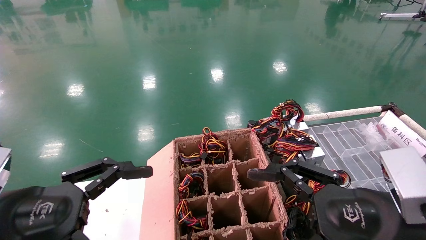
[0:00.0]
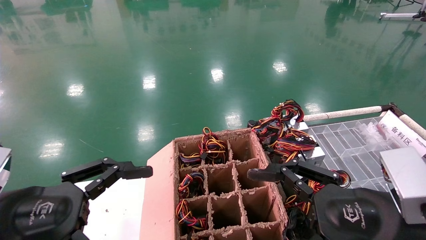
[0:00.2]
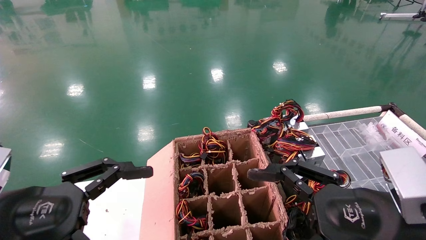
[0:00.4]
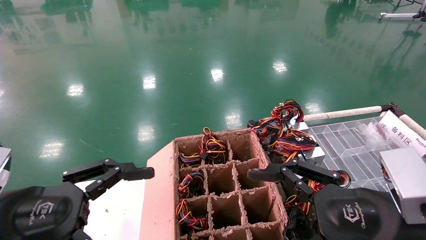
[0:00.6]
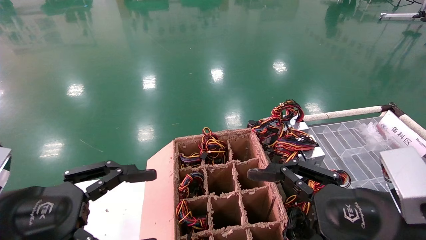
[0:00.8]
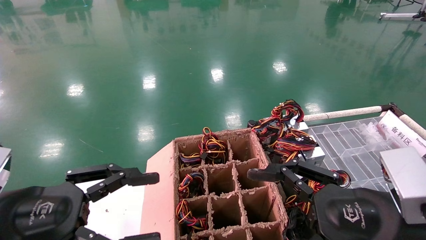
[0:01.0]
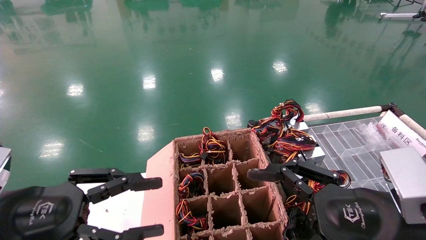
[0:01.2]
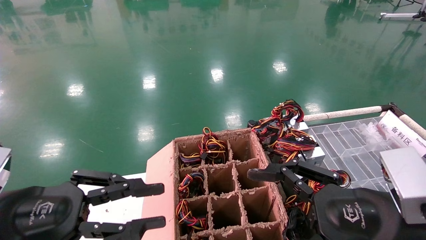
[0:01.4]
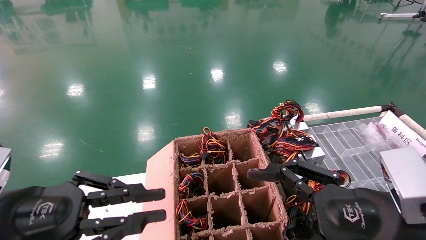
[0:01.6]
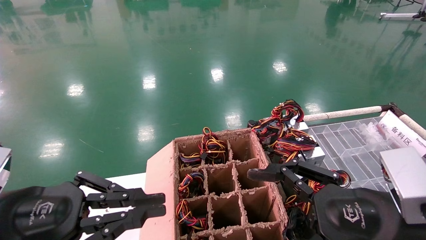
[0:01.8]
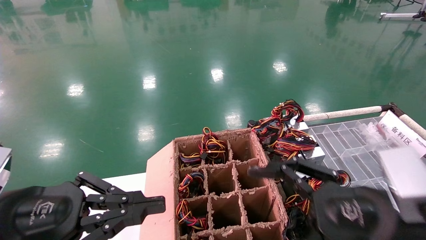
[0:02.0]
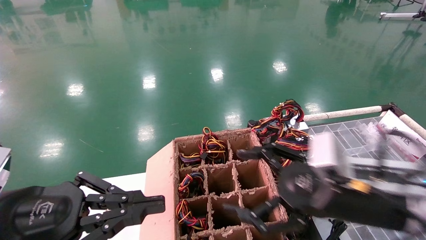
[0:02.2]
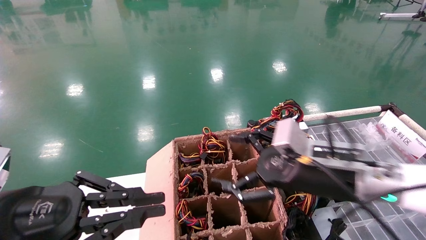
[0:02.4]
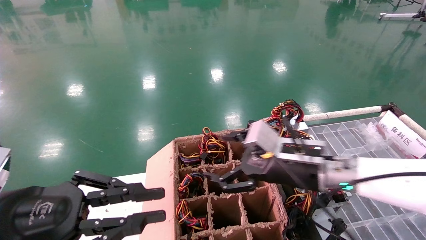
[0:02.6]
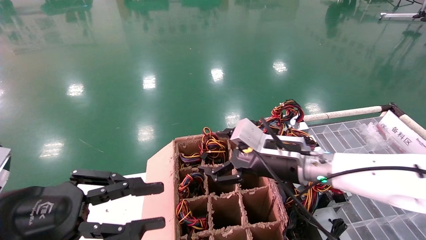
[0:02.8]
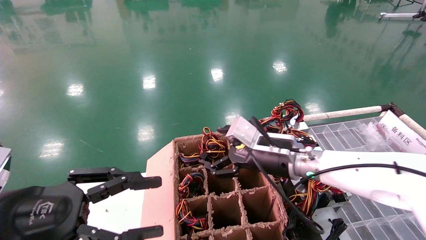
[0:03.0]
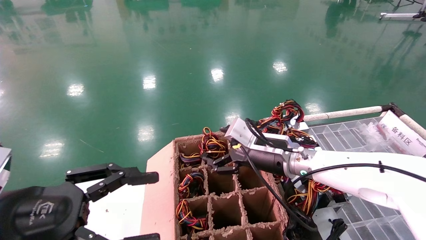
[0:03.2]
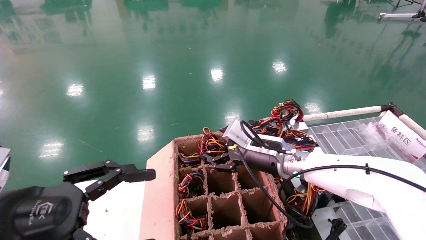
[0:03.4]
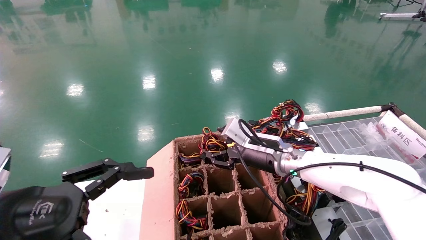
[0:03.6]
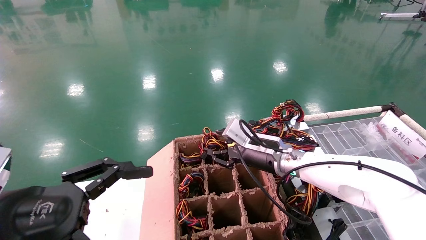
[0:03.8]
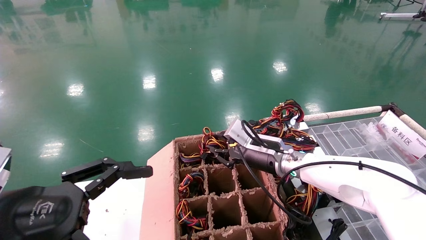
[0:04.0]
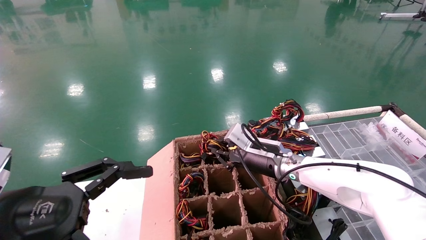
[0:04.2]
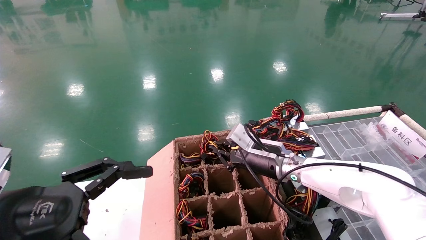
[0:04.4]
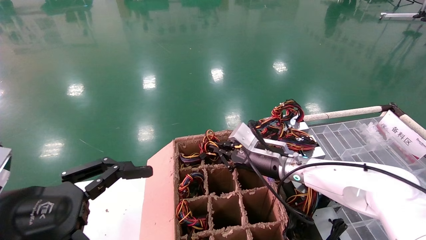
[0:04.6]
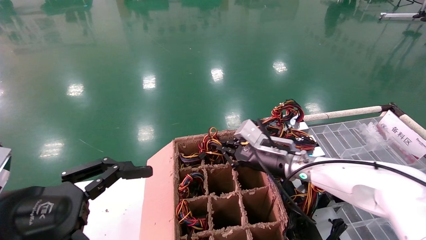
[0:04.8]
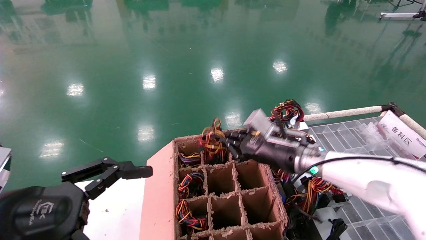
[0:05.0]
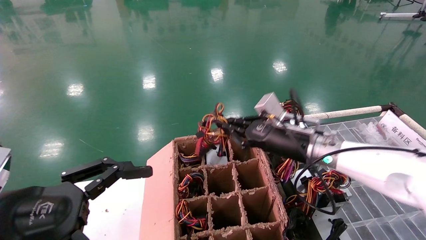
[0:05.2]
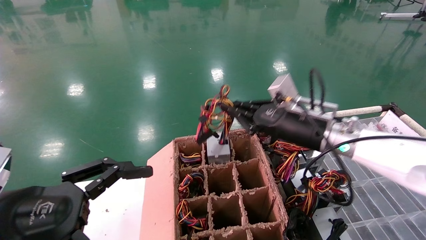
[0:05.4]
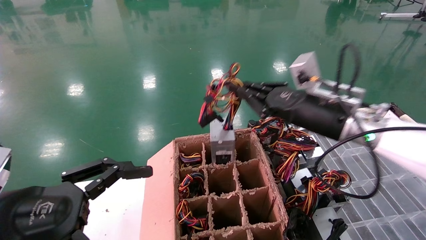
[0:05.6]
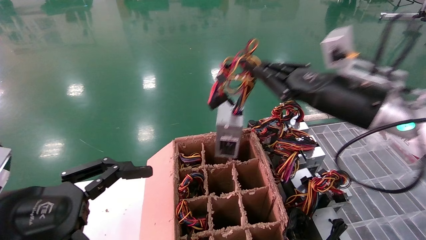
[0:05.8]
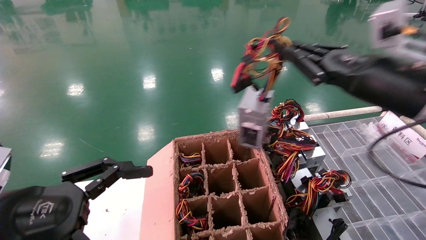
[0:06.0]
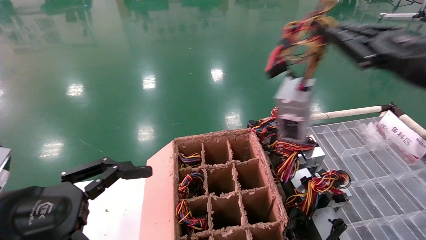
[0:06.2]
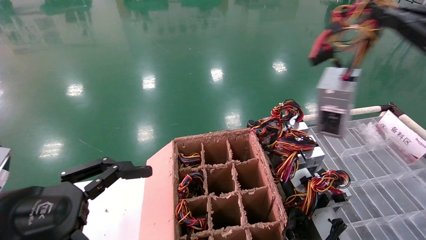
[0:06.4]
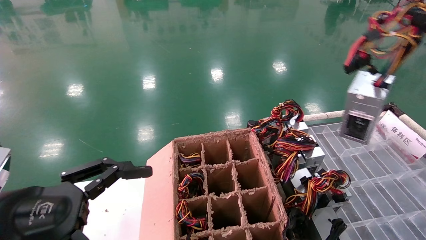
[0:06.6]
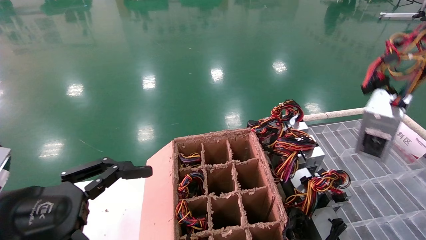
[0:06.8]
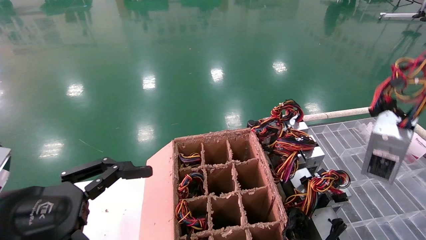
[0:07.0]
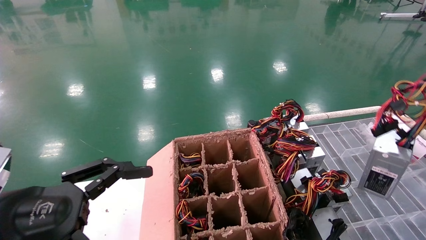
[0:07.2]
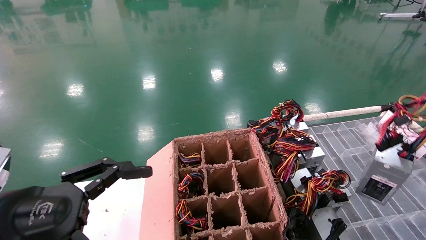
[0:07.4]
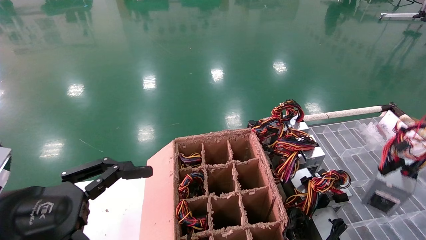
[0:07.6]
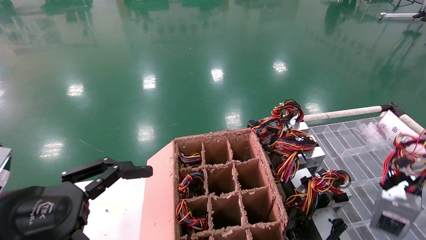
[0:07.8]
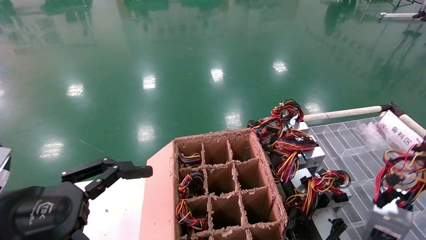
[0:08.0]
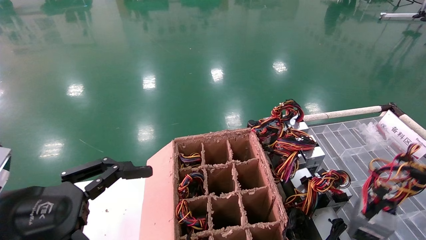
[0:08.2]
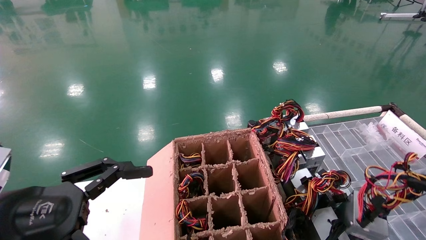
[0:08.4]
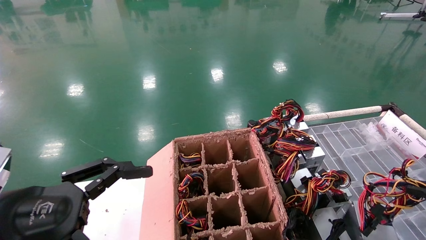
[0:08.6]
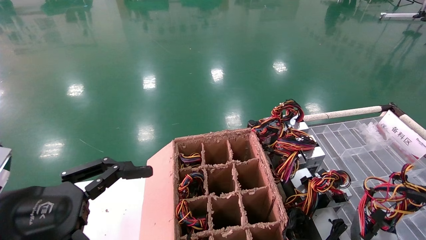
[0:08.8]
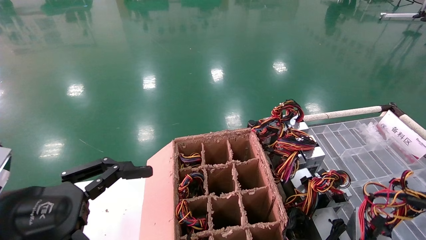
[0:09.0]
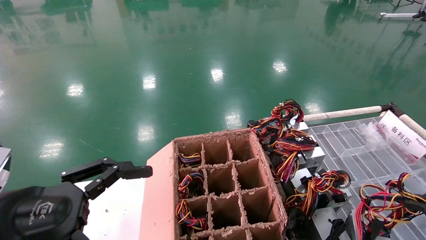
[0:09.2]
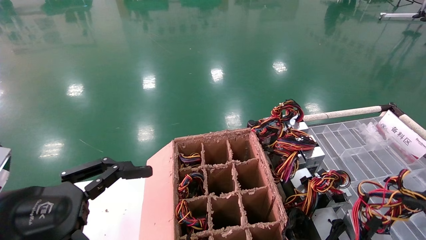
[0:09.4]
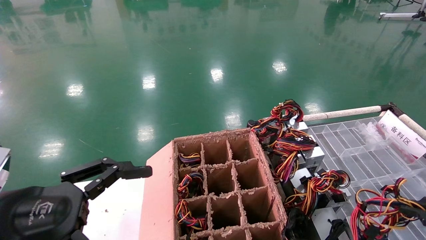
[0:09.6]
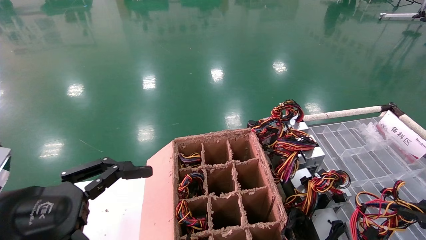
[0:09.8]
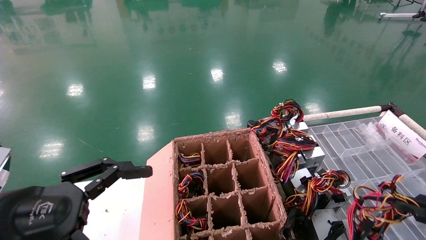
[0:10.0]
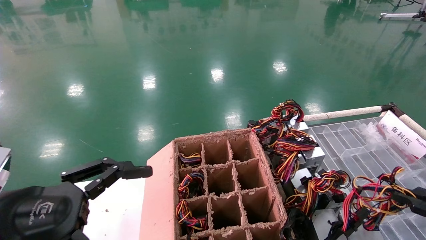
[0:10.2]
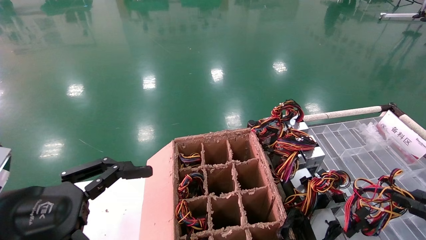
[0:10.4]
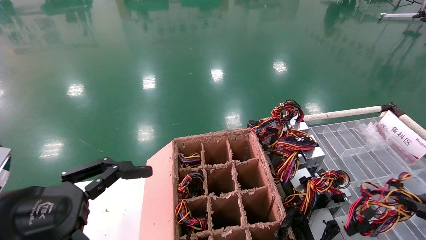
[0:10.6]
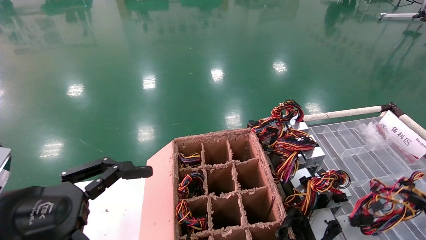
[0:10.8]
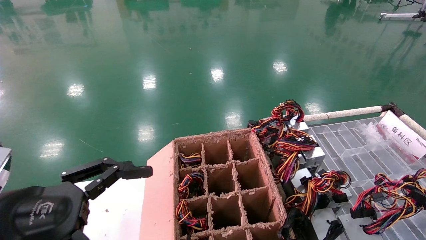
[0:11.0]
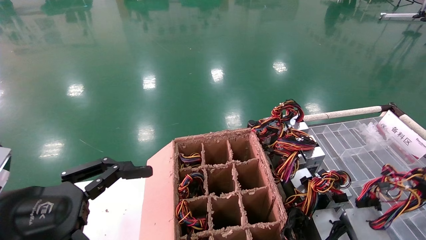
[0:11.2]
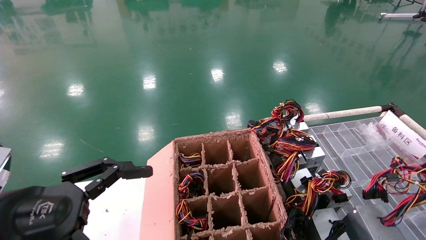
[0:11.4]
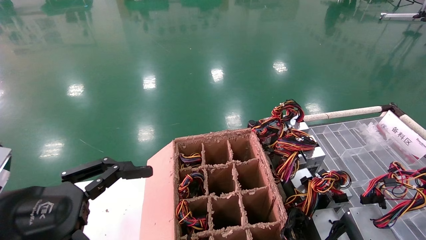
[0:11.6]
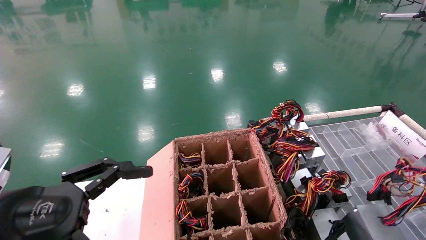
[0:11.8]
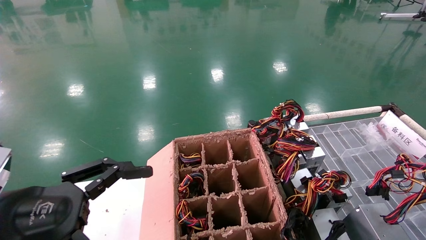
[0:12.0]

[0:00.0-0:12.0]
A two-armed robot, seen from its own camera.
Step, 0:02.2 to 0:04.6: Grab and lift the power supply from the large box.
0:00.0 to 0:01.6: The left gripper closes its fingers.
0:01.6 to 0:03.0: The right gripper travels forward and to the left by roughly 25 cm.
0:03.0 to 0:04.4: The left gripper opens its fingers. Meanwhile the right gripper is displaced forward by approximately 5 cm, and closes up.
0:04.4 to 0:06.0: The right gripper is displaced upward, to the right and backward by roughly 30 cm.
0:06.0 to 0:07.6: The right gripper shifts approximately 25 cm to the right, backward and downward.
0:07.6 to 0:09.0: The right gripper moves approximately 5 cm.
0:09.0 to 0:10.4: The right gripper goes roughly 5 cm downward.
0:10.4 to 0:12.0: The right gripper is displaced downward by some 10 cm.

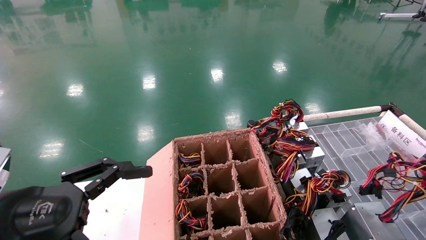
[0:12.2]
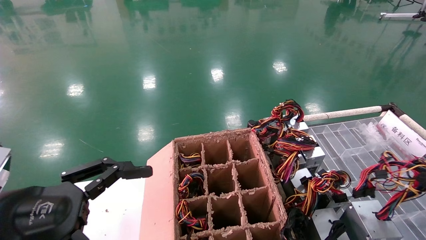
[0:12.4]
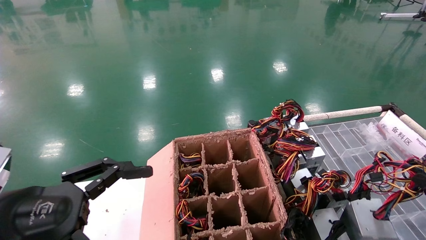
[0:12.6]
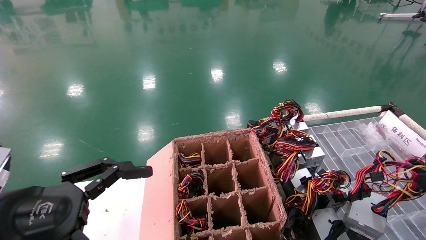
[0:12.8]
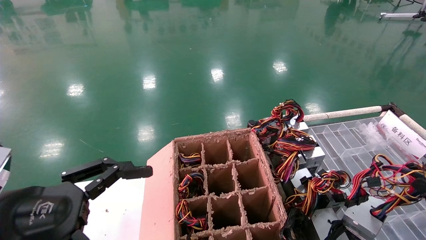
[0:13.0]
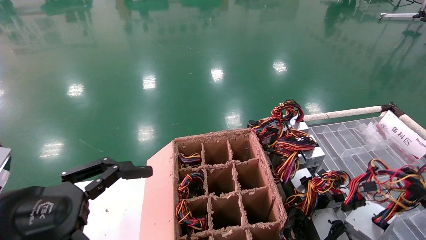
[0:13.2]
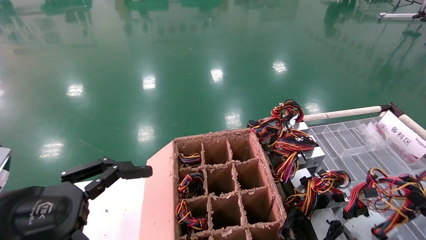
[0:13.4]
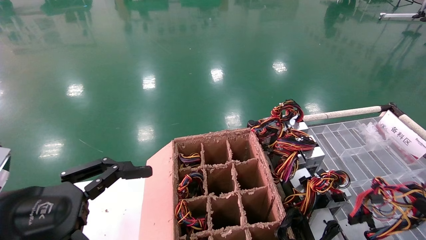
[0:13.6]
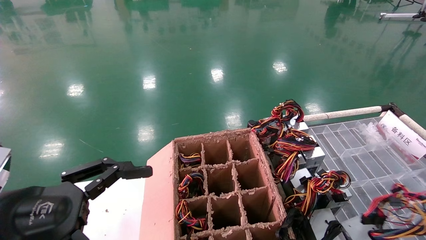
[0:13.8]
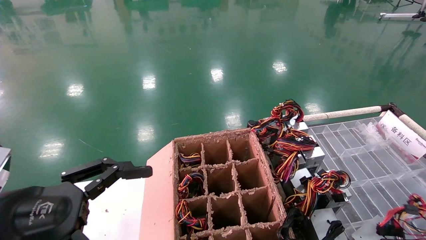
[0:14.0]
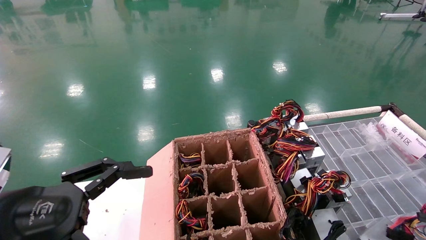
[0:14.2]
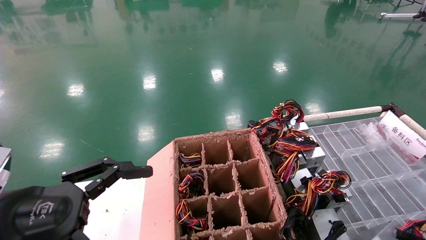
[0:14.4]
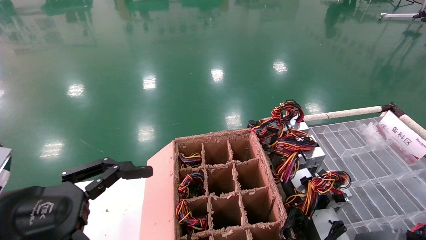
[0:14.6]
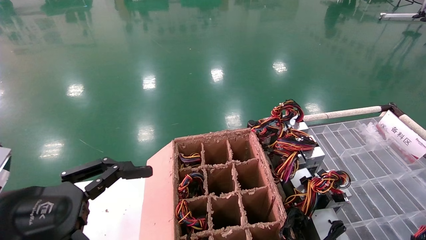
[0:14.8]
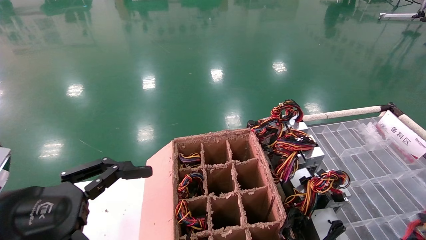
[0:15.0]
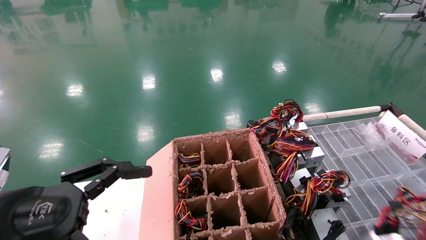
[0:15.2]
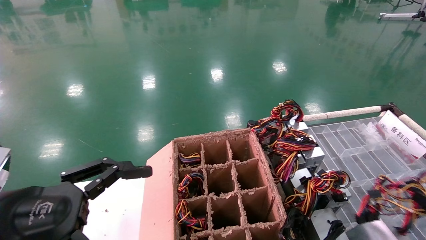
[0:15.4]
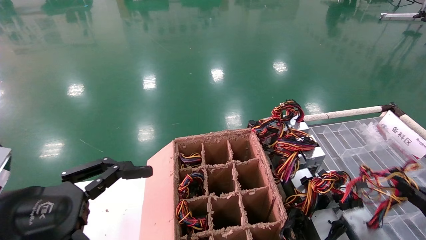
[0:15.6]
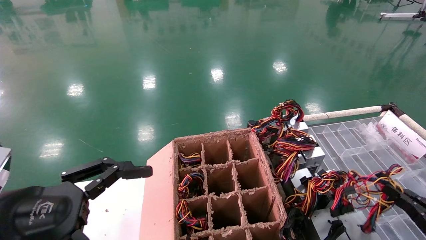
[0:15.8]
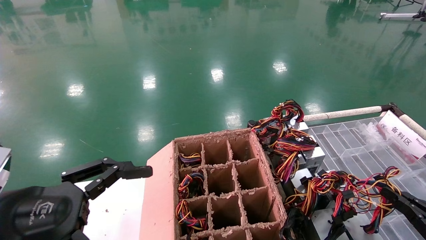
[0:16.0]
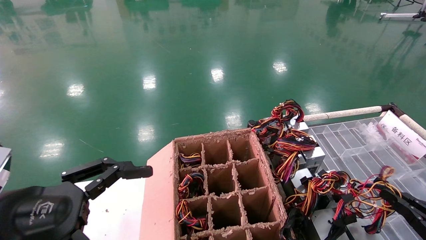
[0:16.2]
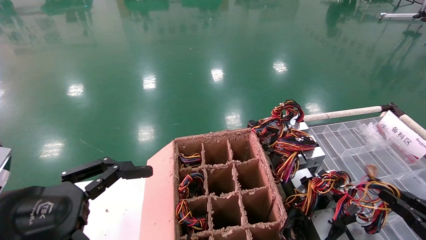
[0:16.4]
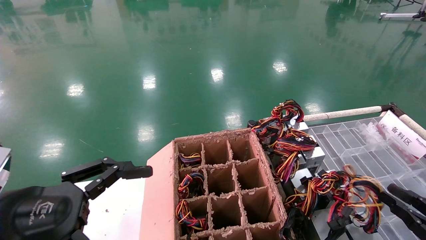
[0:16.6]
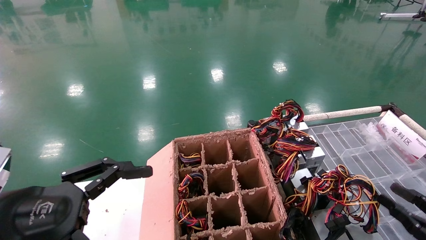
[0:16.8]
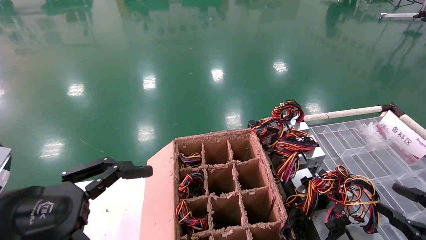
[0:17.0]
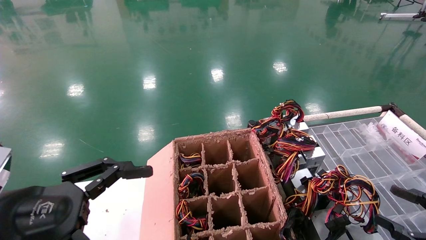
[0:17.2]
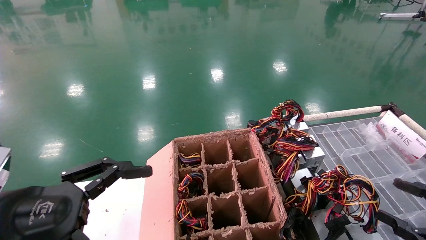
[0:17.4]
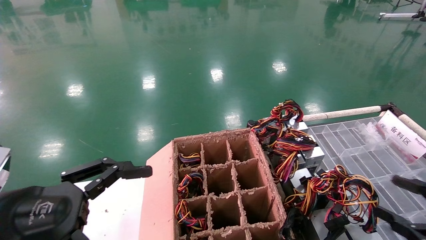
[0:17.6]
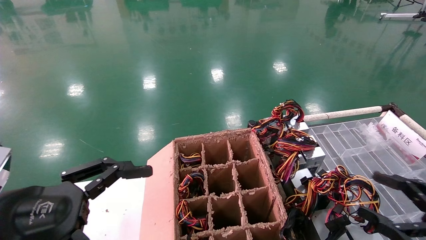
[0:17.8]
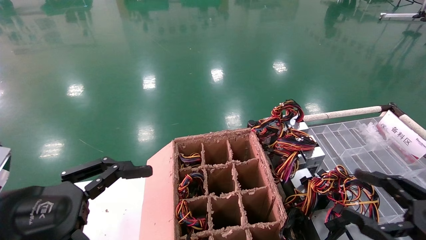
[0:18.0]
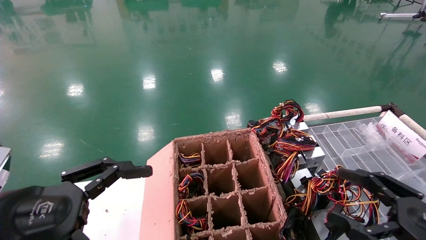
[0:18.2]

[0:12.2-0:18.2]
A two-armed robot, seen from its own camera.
Step, 0:12.2 to 0:16.6: Place the power supply on the operating table.
0:12.2 to 0:13.8: The right gripper moves approximately 5 cm.
0:13.8 to 0:15.2: The grippers make only small movements.
0:15.2 to 0:16.6: The right gripper shifts by about 5 cm.
0:16.6 to 0:18.2: The right gripper shifts about 15 cm to the left and upward, and opens up.
